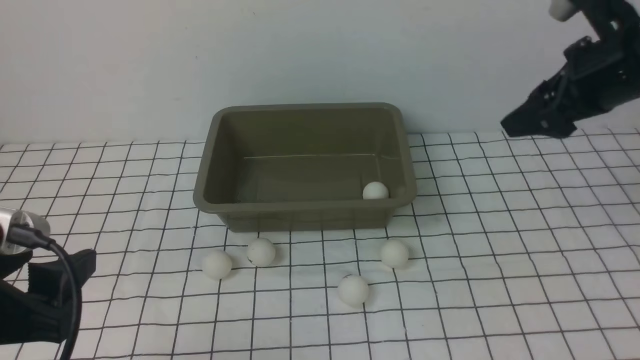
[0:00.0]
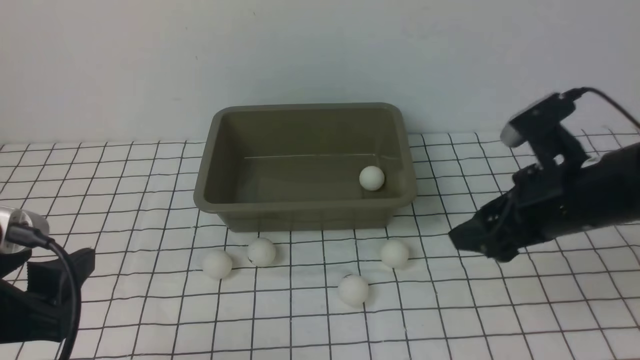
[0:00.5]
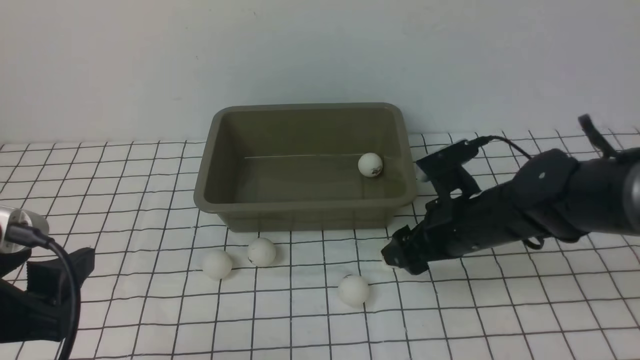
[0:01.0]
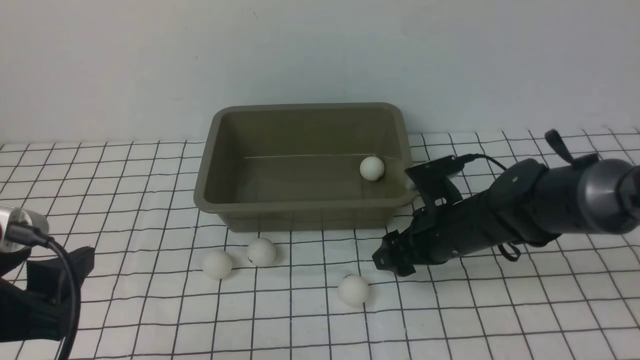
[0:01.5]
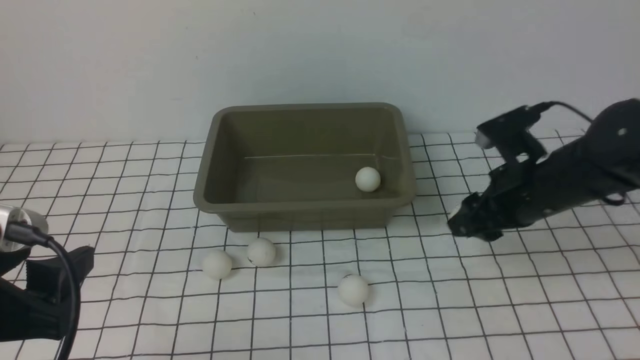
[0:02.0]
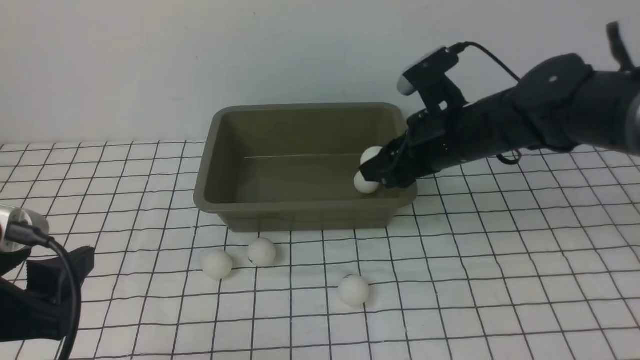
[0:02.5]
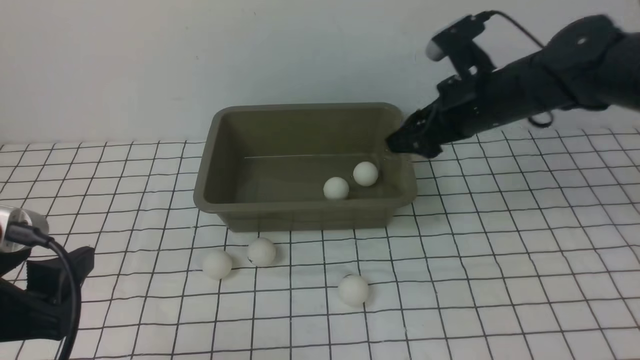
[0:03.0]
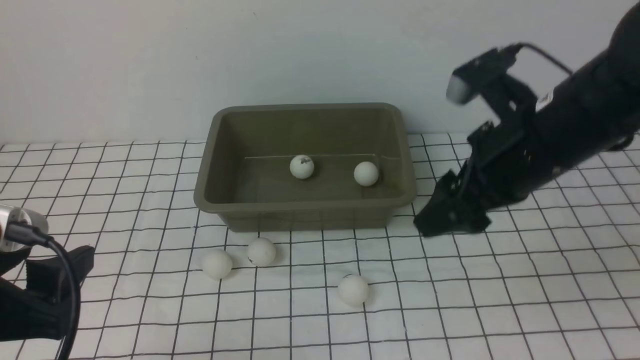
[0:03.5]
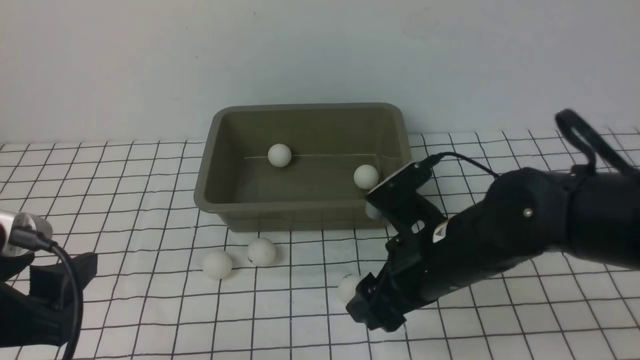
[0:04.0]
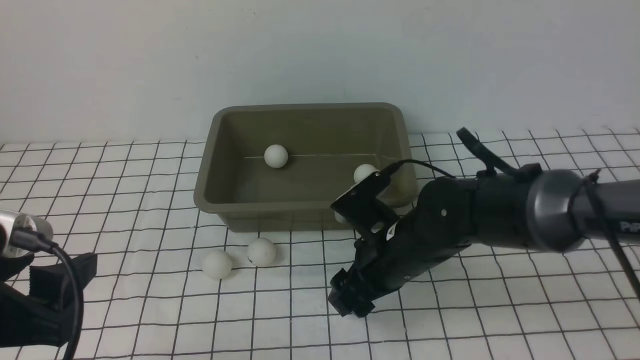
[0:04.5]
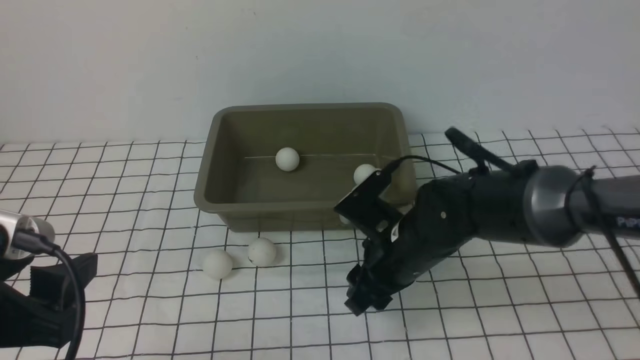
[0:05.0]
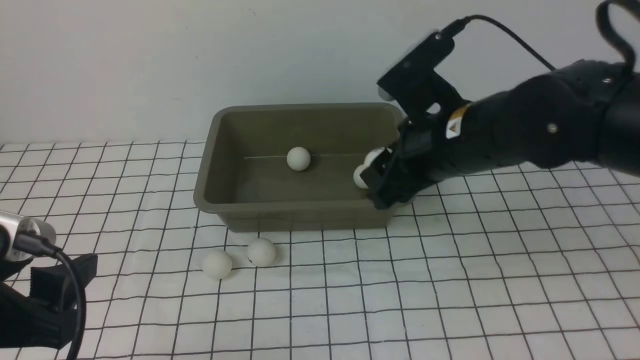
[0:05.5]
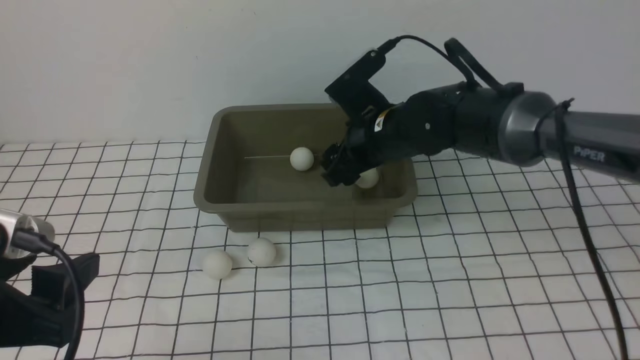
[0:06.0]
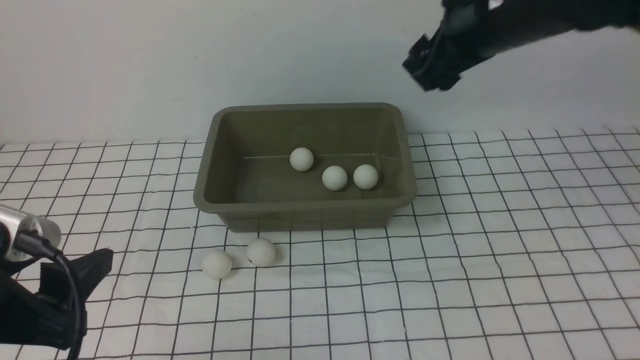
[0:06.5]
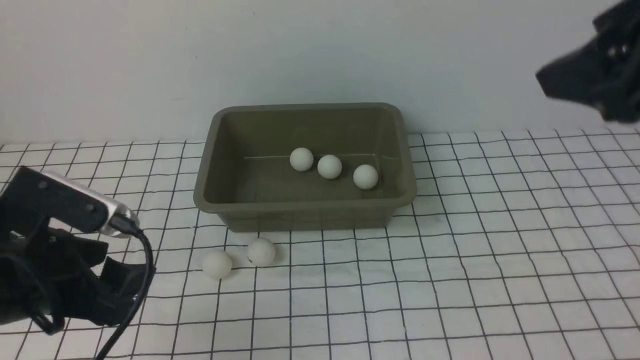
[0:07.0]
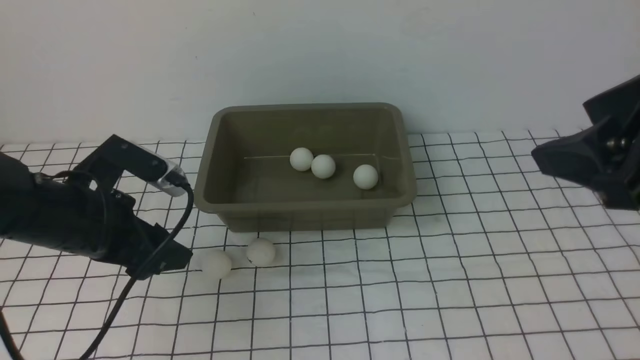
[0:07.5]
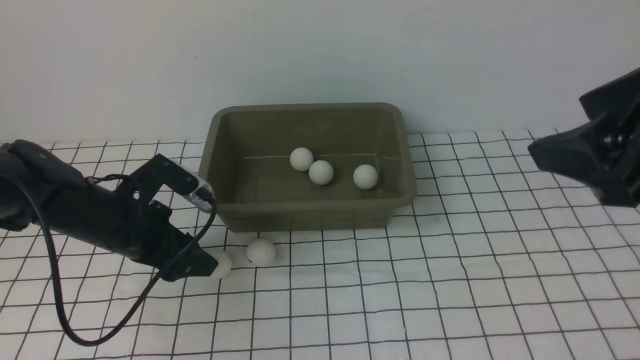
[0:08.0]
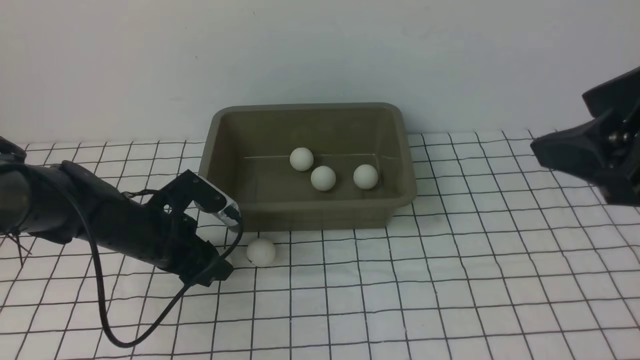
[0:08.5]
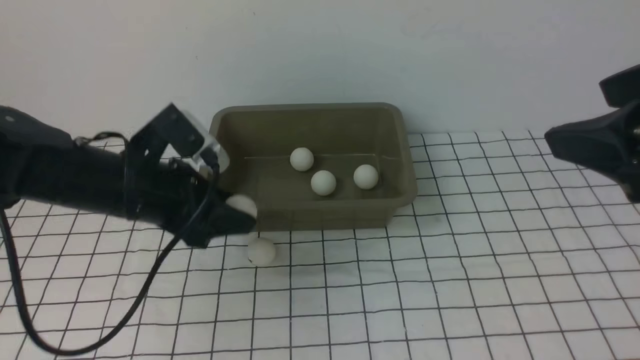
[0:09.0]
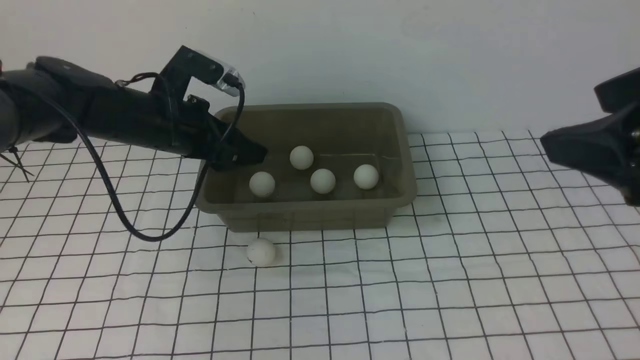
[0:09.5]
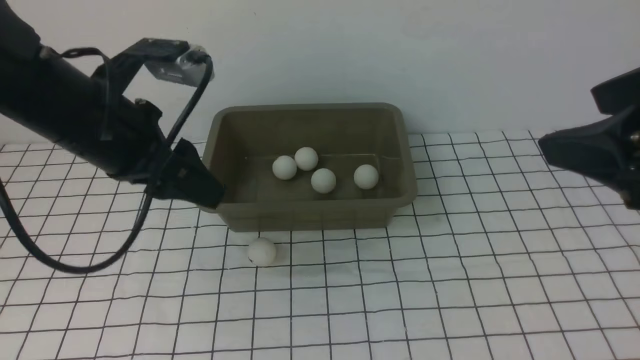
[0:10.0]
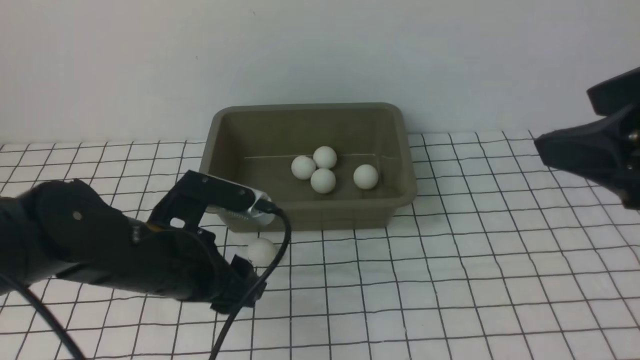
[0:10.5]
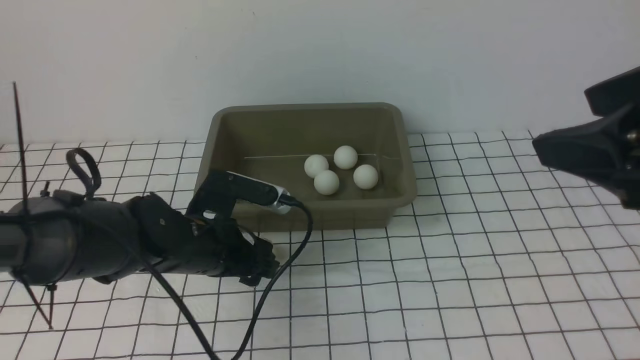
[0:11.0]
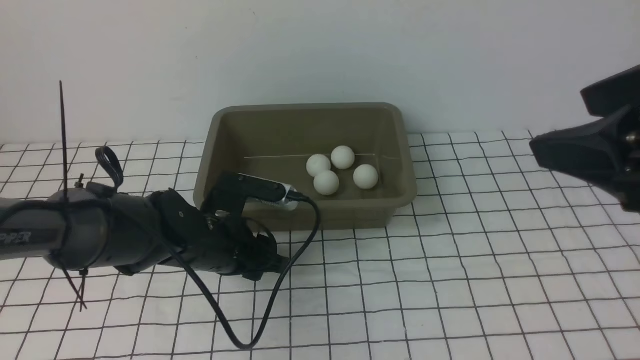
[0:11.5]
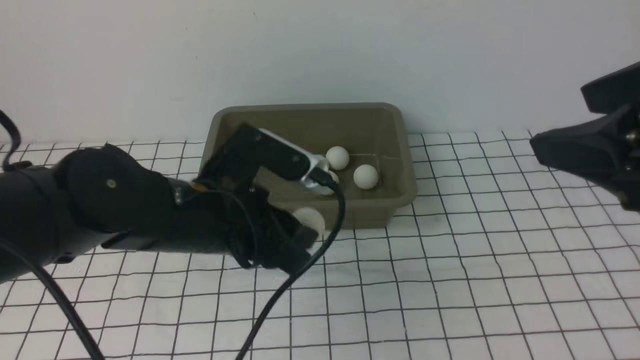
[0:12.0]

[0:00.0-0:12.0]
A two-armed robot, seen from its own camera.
Step, 0:00.0 to 0:01.5: use the right arm to clamp the table tennis ball closest to it.
Step, 0:02.0 to 0:02.5: use the right arm to put the table tennis ball into the box.
Step, 0:03.0 to 0:05.0: use the right arm to clamp the table tennis ball closest to it.
Step, 0:05.5 to 0:06.0: use the right arm to put the table tennis ball into the box.
Step, 0:06.5 to 0:08.5: use the left arm to clamp the table tennis ball closest to it.
Step, 0:09.0 to 0:09.5: use the left arm to put the table tennis ball into the box.
Step, 0:10.0 to 0:11.5: use the left arm to clamp the table tennis ball closest to it.
0:00.0 to 0:02.0: The right gripper goes some 15 cm downward and to the left, and closes up.
0:02.0 to 0:04.0: The right gripper goes roughly 10 cm to the left and backward, and opens.
0:04.0 to 0:06.0: The right gripper moves forward, some 15 cm, and closes and opens again.
0:06.0 to 0:08.0: The left gripper is displaced forward and downward by about 25 cm; the right gripper heads backward, upward and to the right, covering some 30 cm.
0:08.0 to 0:10.0: The left gripper is displaced upward, backward and to the right by some 15 cm, and closes and opens again.
0:10.0 to 0:12.0: The left gripper moves forward, approximately 10 cm, and moves roughly 10 cm downward and comes back.

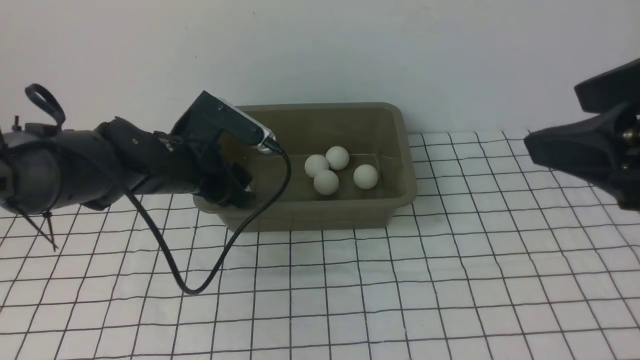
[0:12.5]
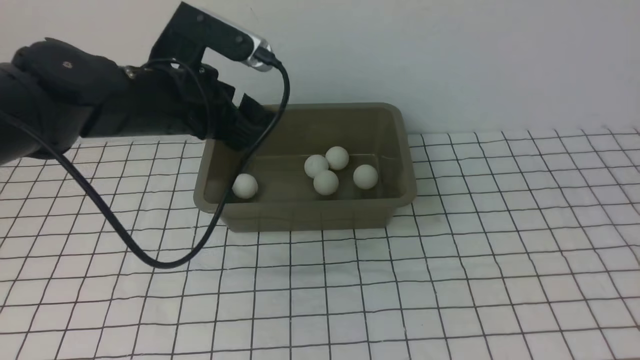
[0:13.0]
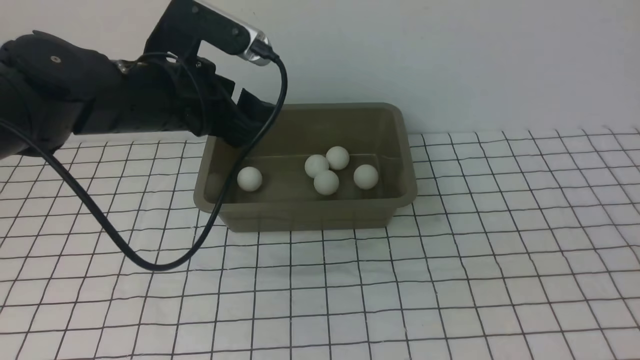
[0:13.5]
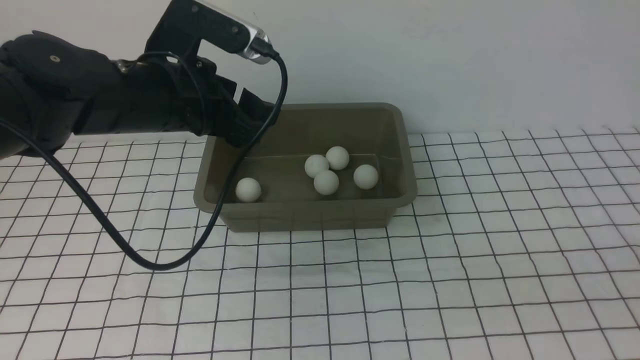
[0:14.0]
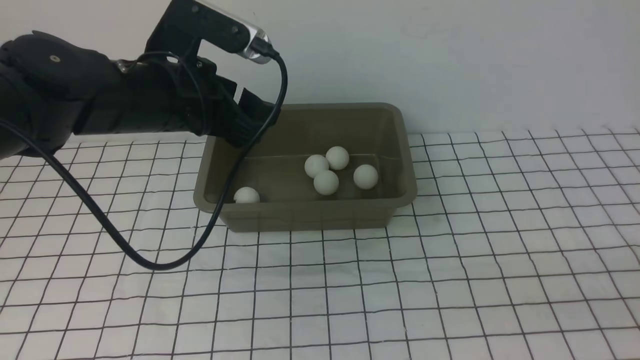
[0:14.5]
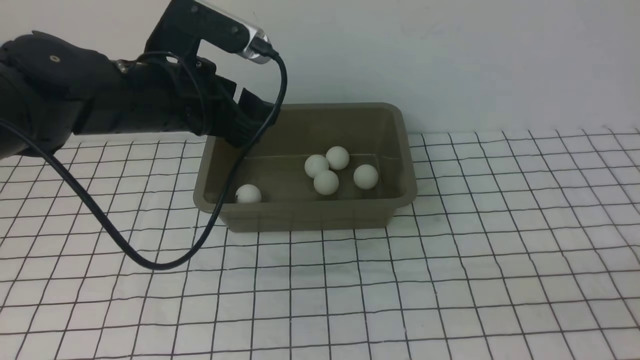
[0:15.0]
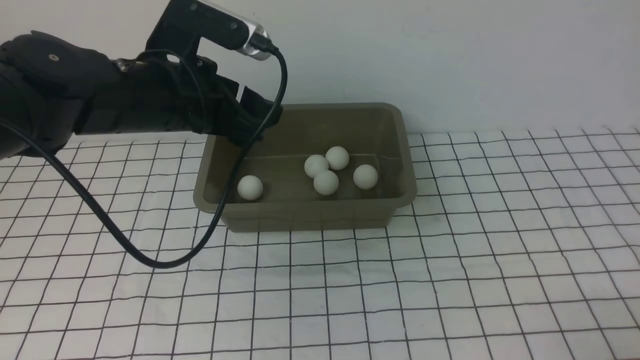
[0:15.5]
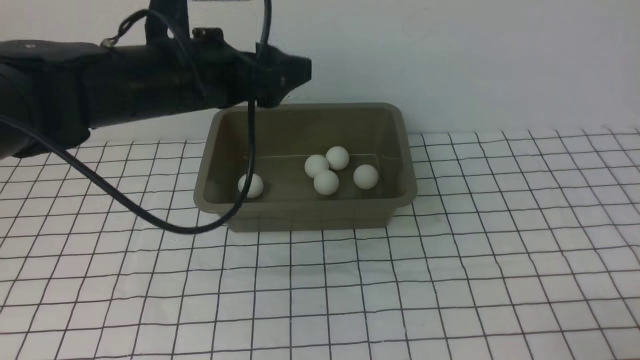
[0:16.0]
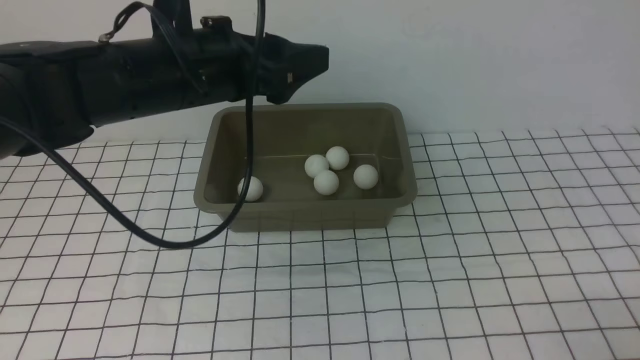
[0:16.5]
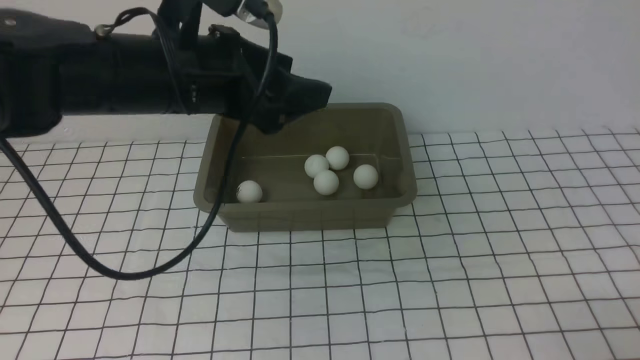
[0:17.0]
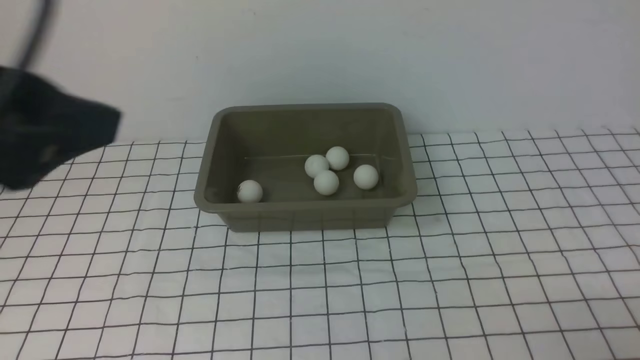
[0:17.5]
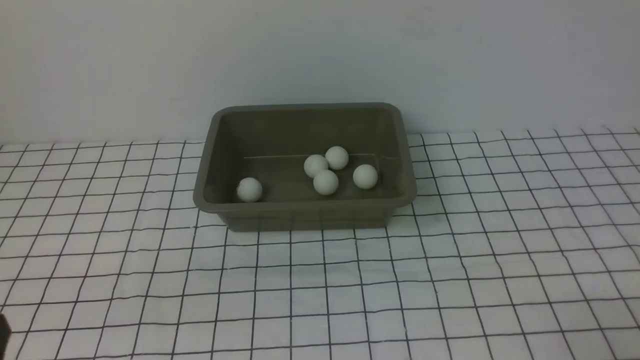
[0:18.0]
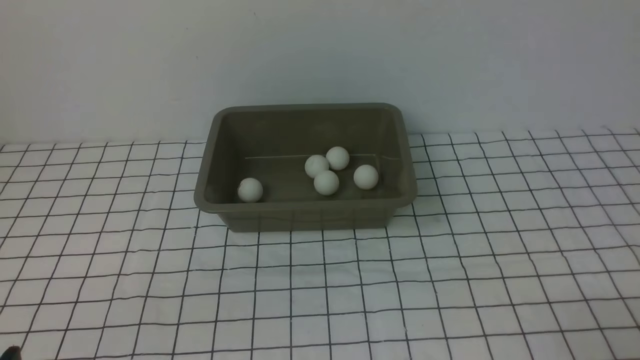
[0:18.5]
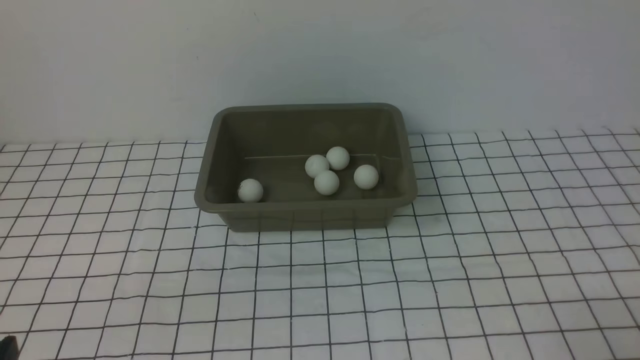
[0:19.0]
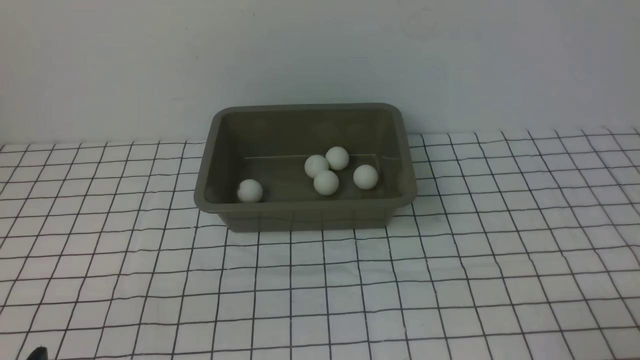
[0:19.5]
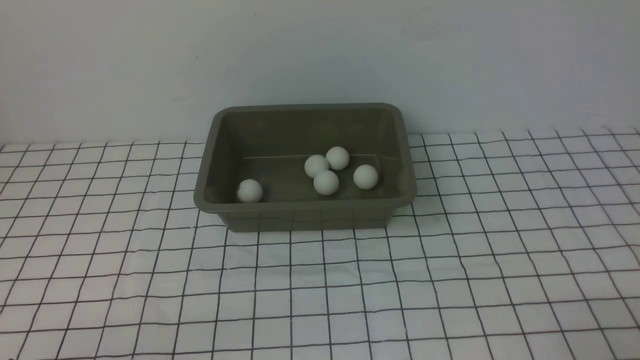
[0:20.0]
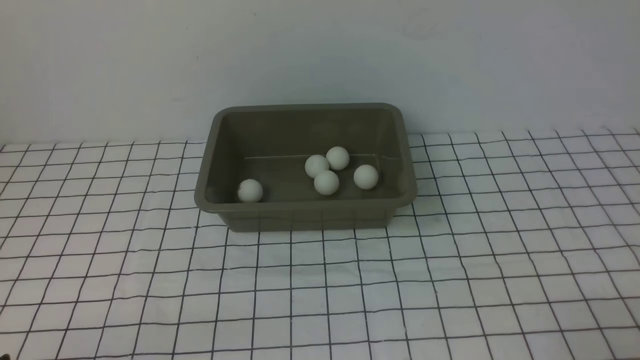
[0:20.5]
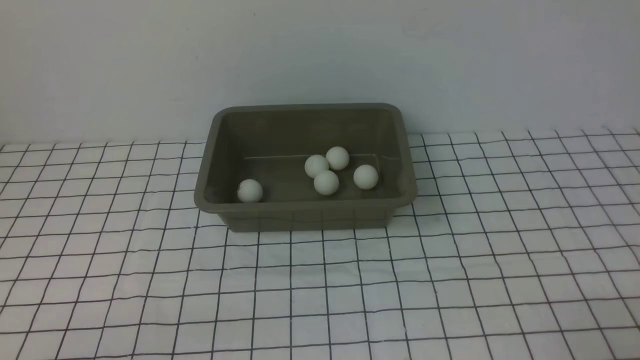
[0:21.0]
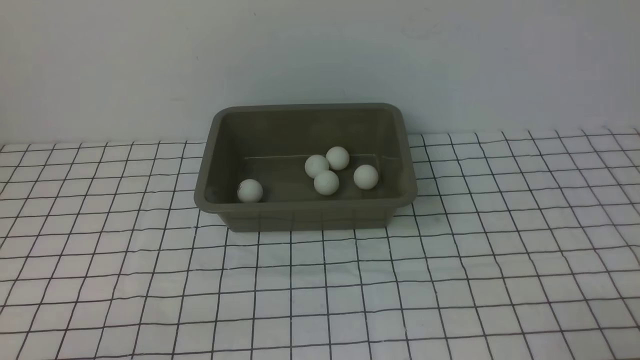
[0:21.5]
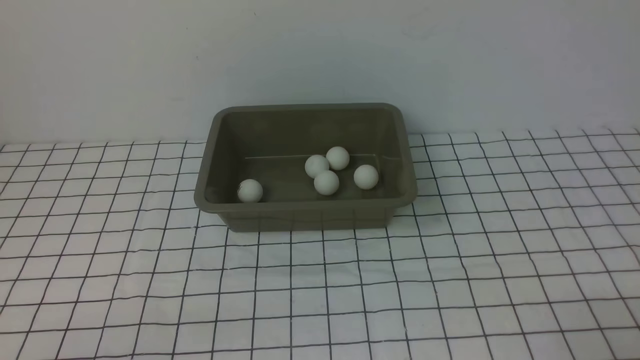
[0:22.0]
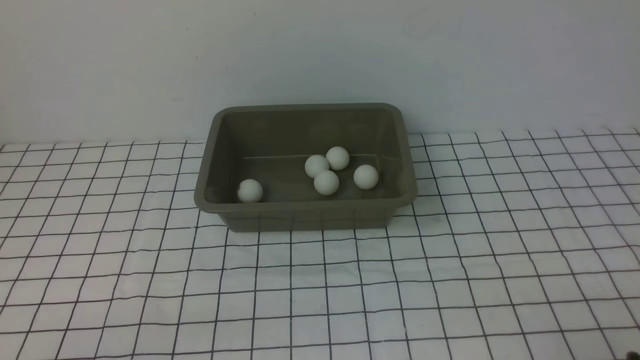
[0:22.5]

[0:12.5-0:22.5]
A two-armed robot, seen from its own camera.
0:12.5 to 0:14.5: The right gripper heads downward, covering about 25 cm, and closes its fingers.
0:14.5 to 0:16.5: The left gripper shifts approximately 10 cm backward and upward.
0:16.5 to 0:18.5: The left gripper shifts approximately 30 cm backward, downward and to the left.
